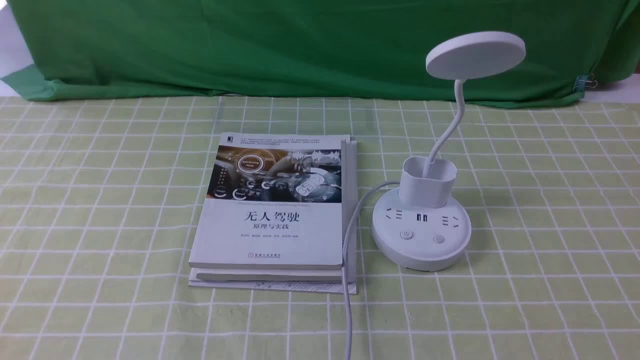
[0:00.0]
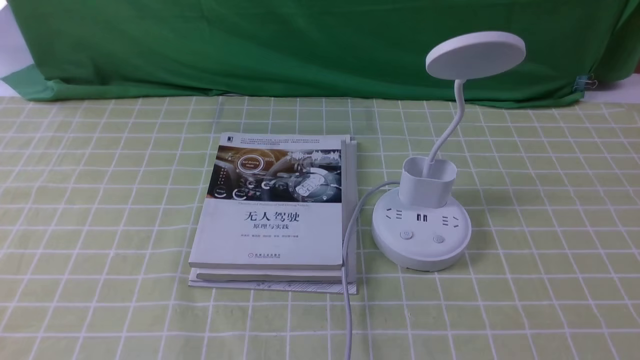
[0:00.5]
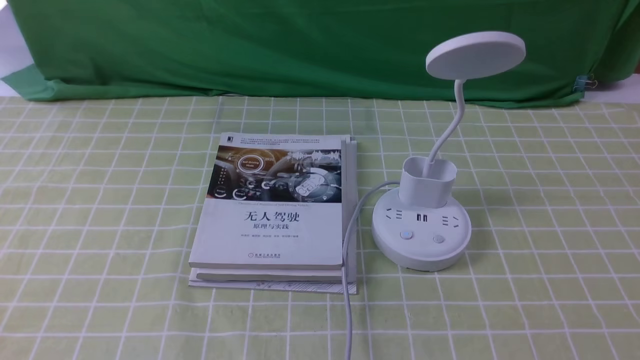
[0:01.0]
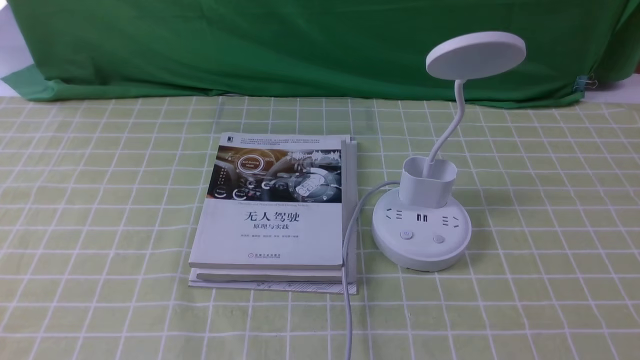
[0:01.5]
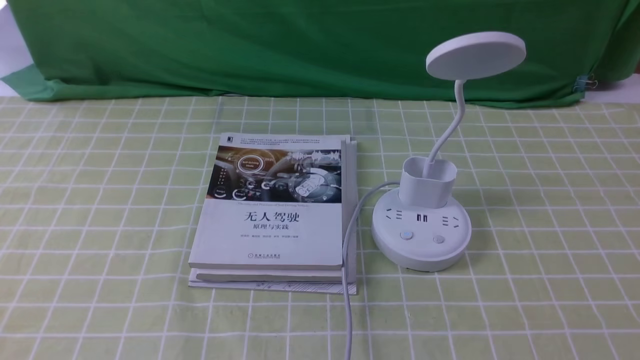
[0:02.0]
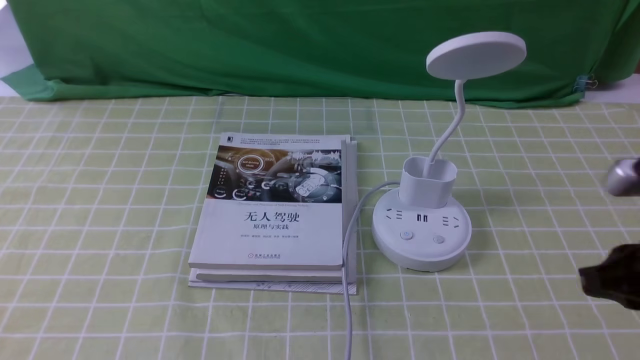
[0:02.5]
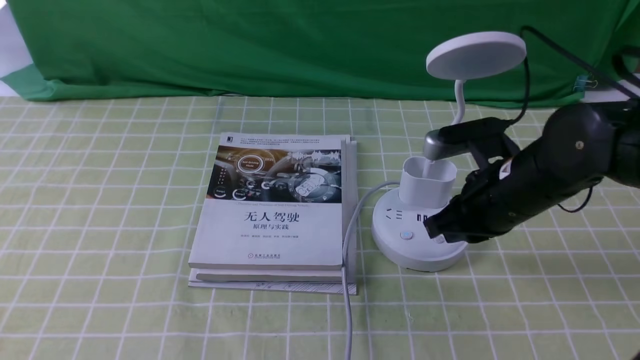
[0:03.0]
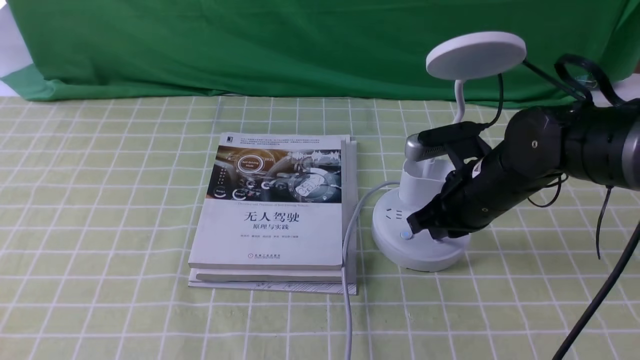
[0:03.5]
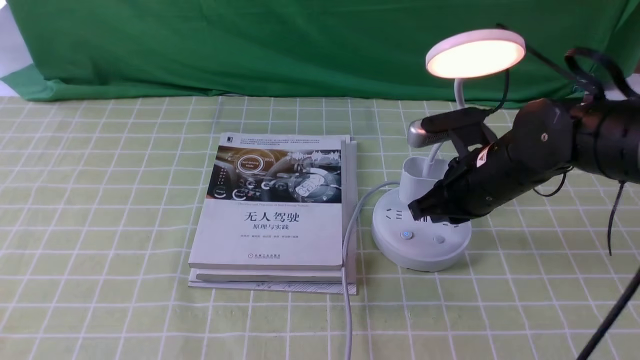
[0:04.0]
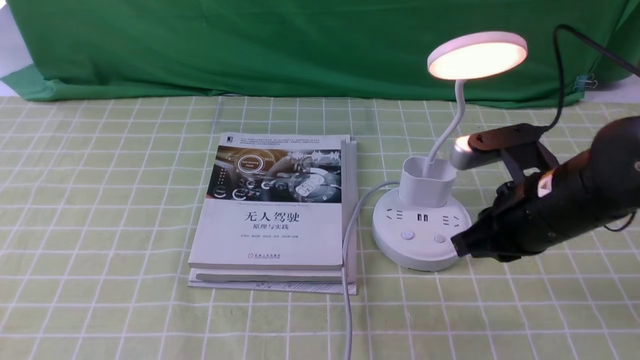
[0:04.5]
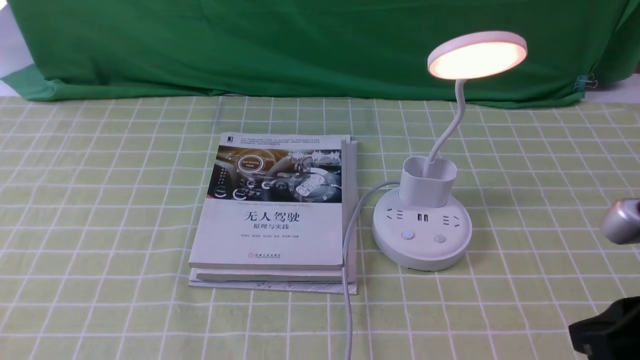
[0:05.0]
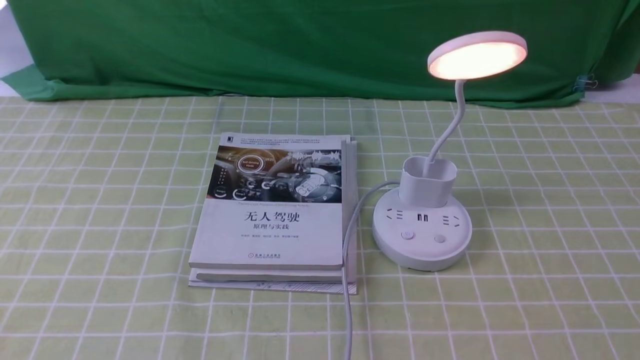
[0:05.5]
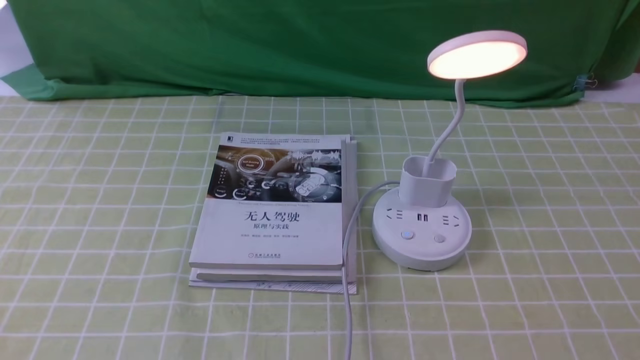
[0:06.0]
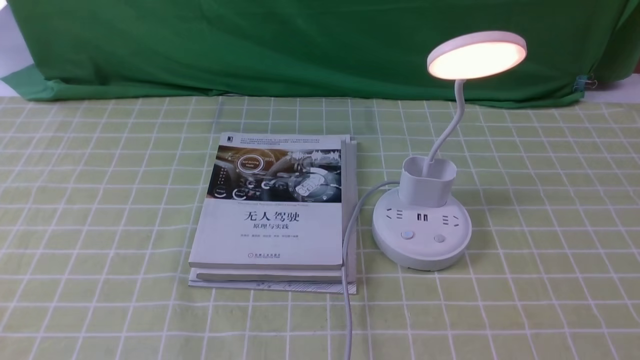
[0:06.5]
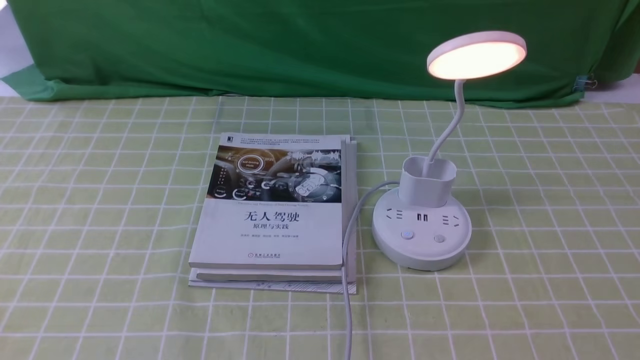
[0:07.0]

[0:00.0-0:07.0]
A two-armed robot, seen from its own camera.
Step, 0:00.0 to 0:03.5: use the right arm to press the button switch on the lamp holder.
0:02.0 to 0:03.5: The right gripper shifts some 30 cm forward and to the left, and closes.
0:03.5 to 0:05.0: The right gripper shifts some 25 cm backward, upward and to the right.
0:05.0 to 0:07.0: The right gripper shifts approximately 15 cm downward, backward and to the right.

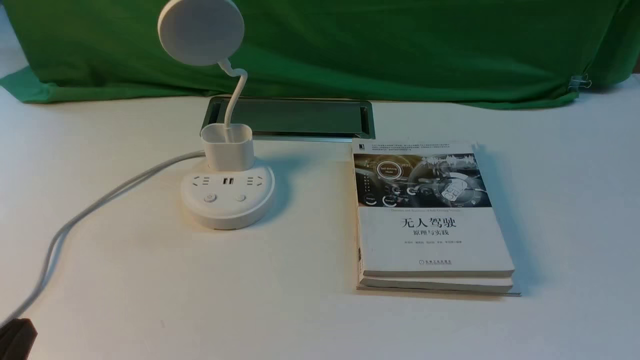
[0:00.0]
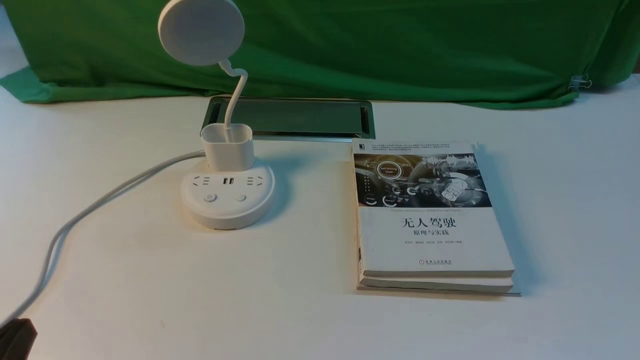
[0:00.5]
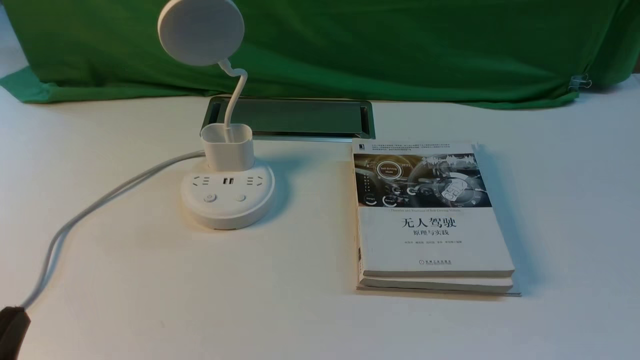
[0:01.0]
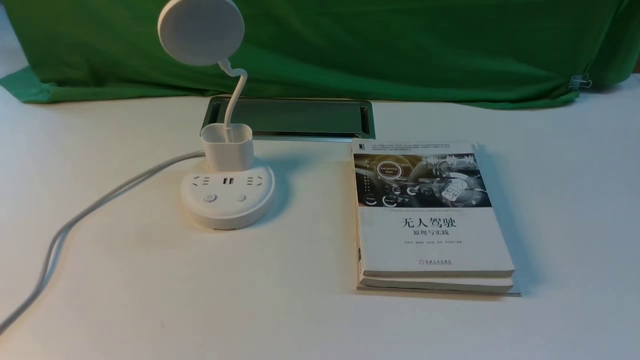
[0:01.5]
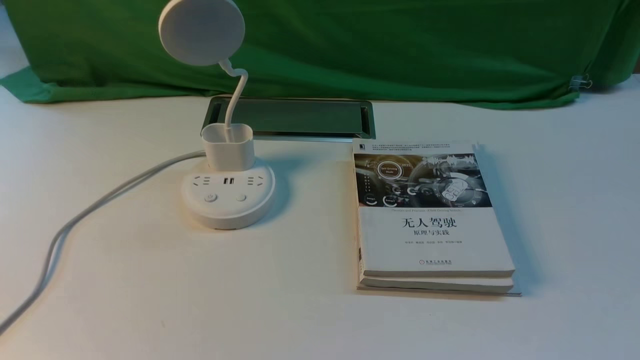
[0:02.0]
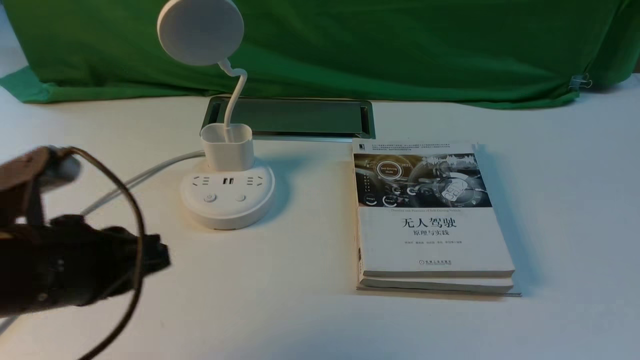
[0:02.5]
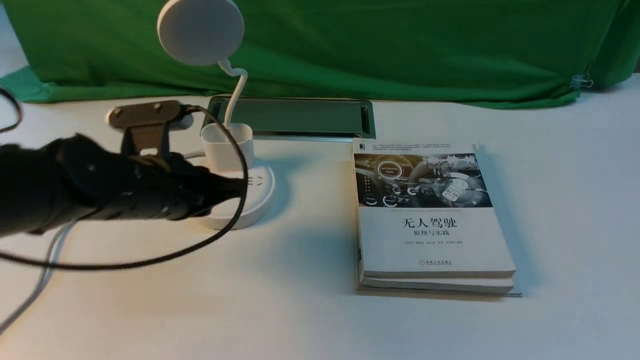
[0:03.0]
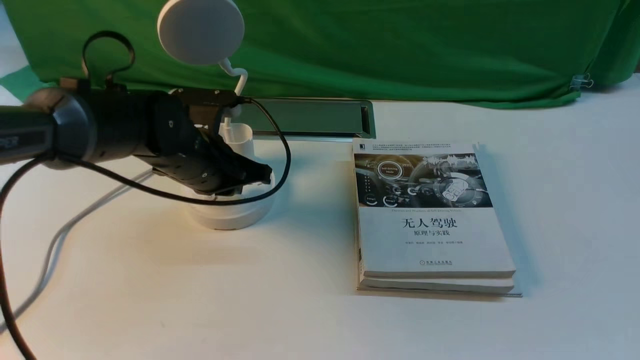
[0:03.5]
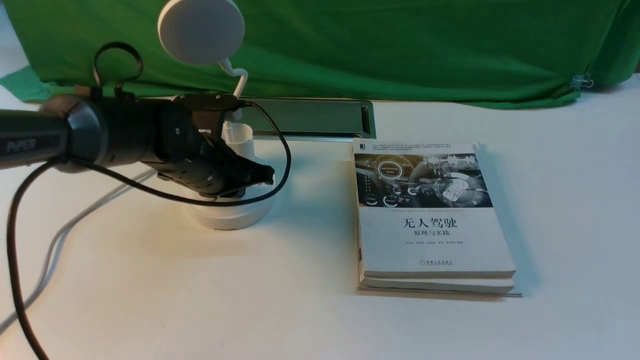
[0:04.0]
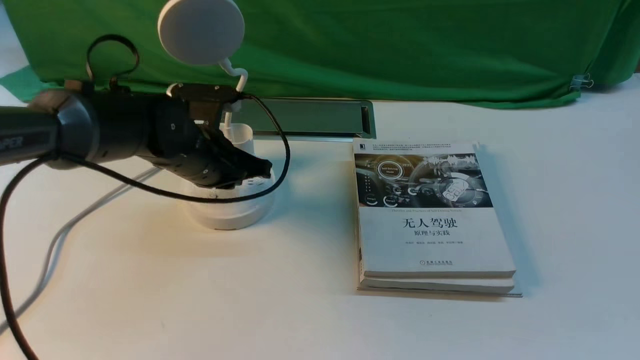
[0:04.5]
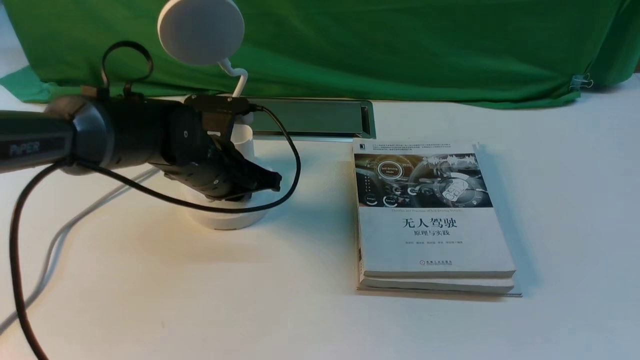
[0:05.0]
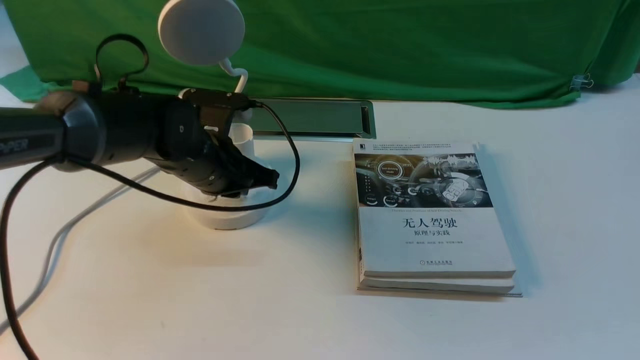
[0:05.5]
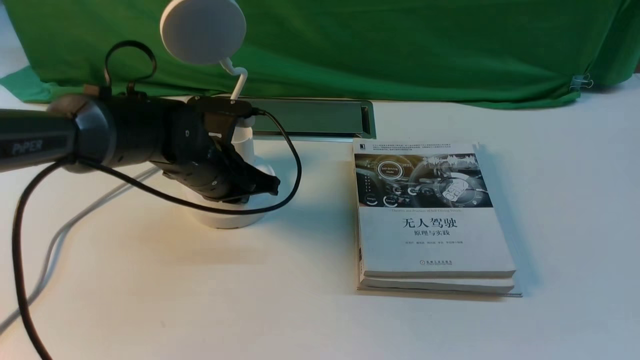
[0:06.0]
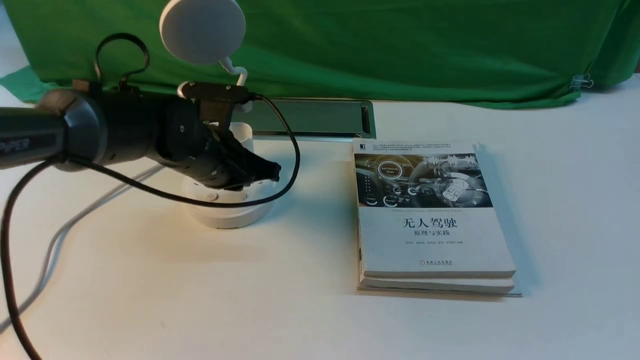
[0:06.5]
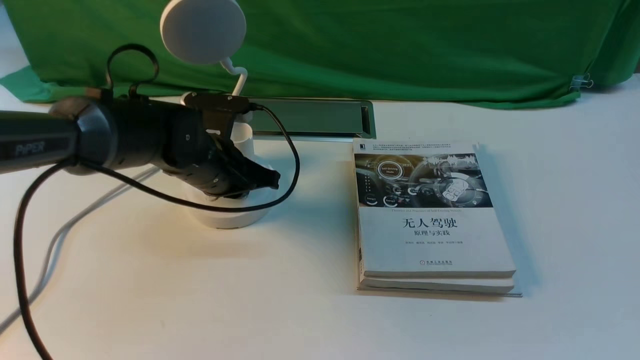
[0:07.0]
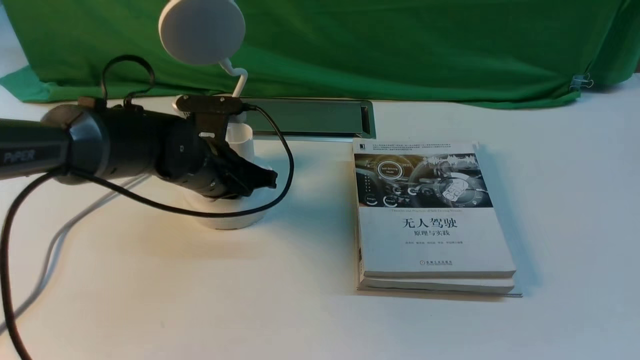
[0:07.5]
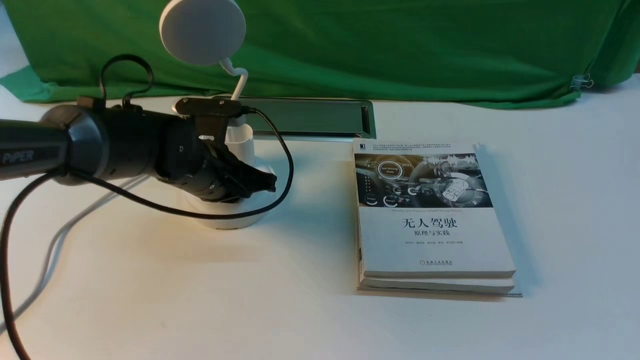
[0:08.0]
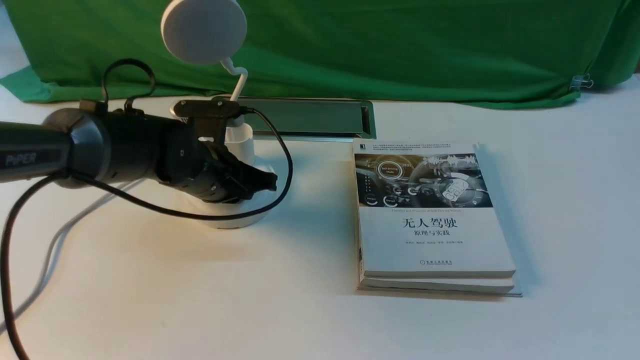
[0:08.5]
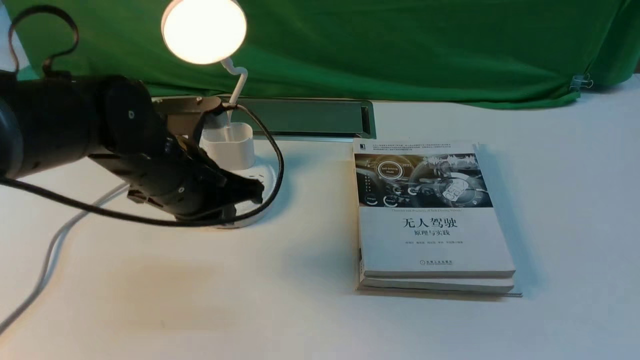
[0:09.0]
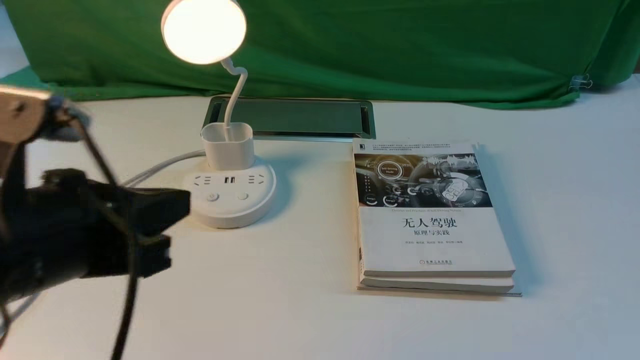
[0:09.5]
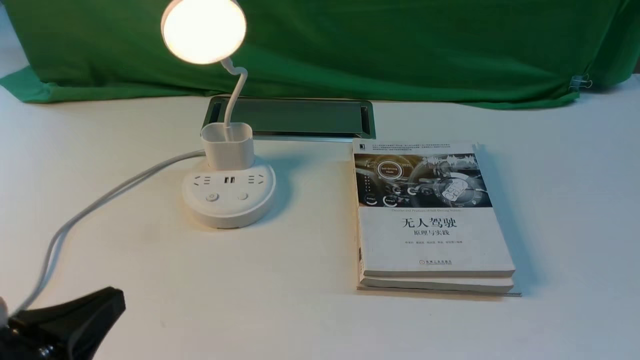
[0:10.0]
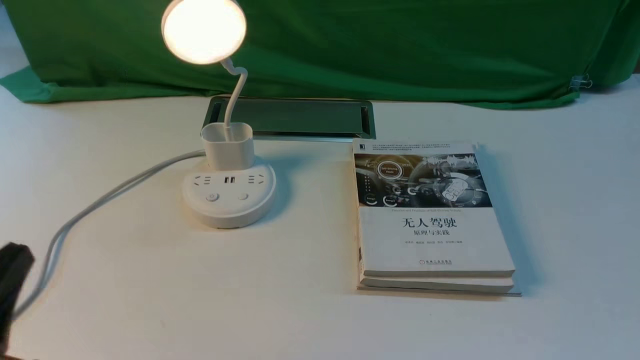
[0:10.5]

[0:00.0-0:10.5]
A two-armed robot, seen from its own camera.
Step, 0:00.0 to 0:09.0: use the left arm to press the button switch on the lamp holder.
0:02.0 to 0:04.0: The left gripper travels forward, downward and to the right by approximately 40 cm.
0:04.0 to 0:08.5: The grippers stay close to where they were, moving slightly.
0:08.5 to 0:10.5: The left gripper travels backward and to the left by roughly 30 cm.

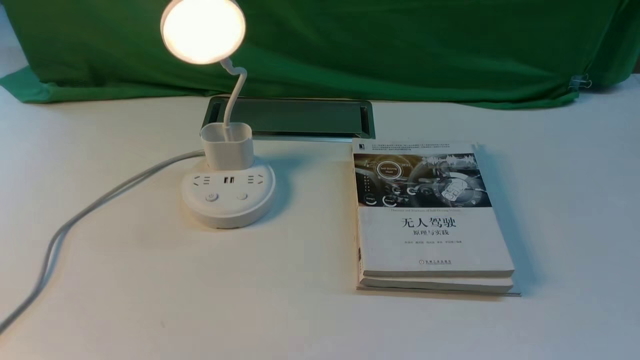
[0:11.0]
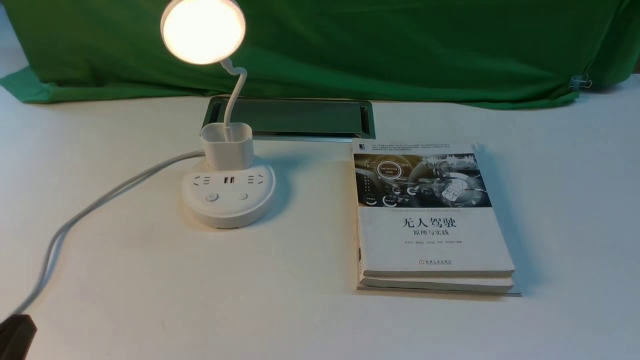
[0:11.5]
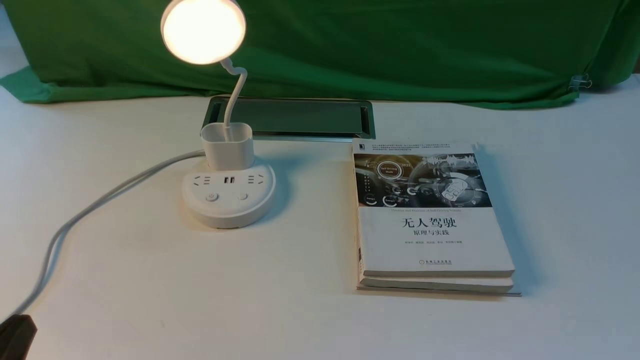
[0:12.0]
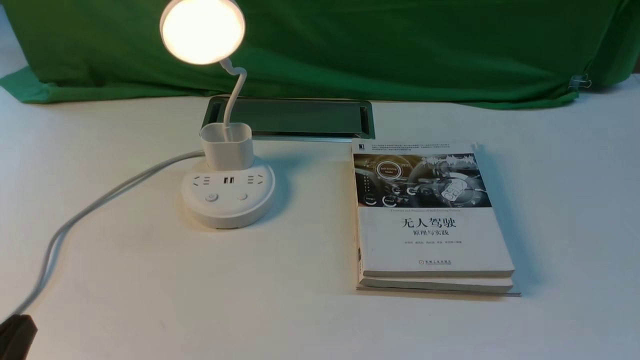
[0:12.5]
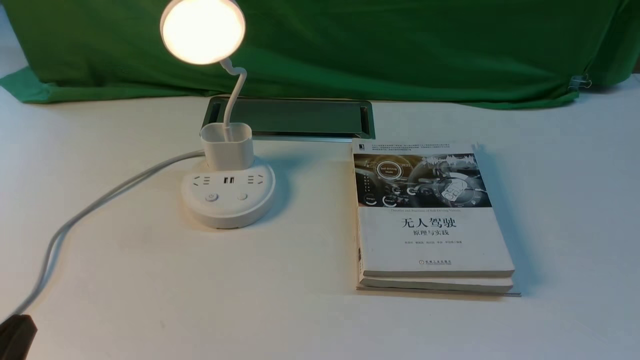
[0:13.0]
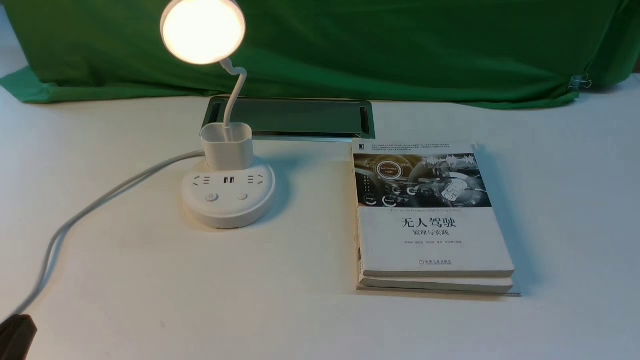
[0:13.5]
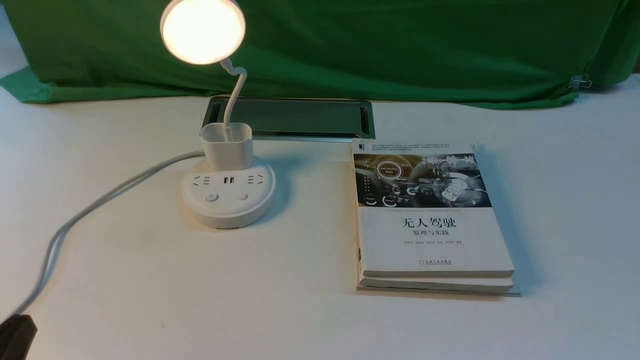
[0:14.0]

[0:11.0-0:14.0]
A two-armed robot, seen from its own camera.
0:12.5 to 0:14.0: The two grippers keep their place.
